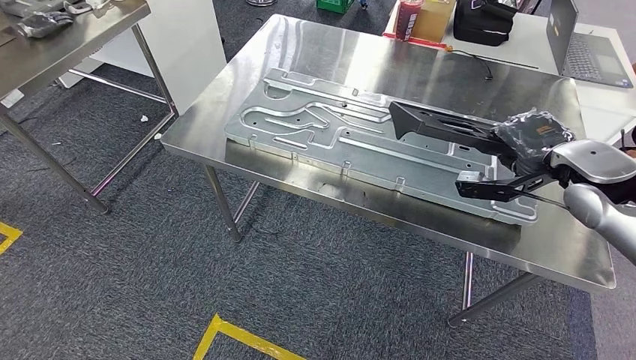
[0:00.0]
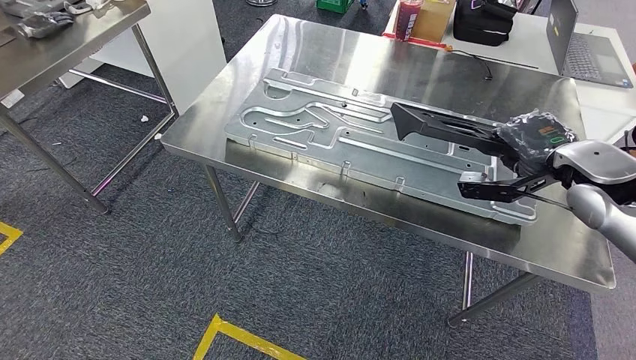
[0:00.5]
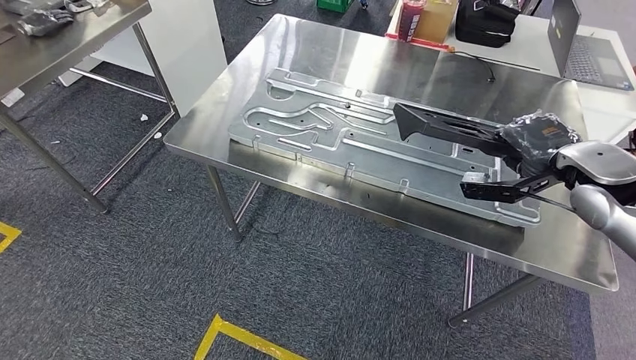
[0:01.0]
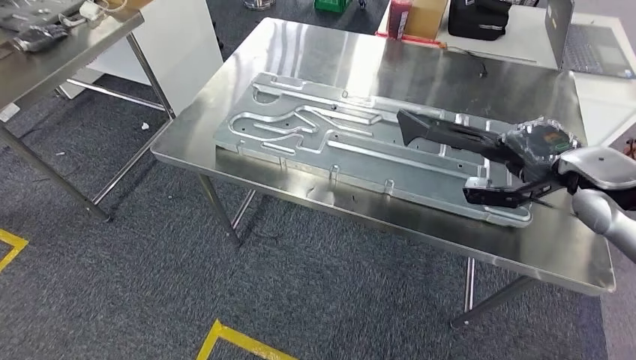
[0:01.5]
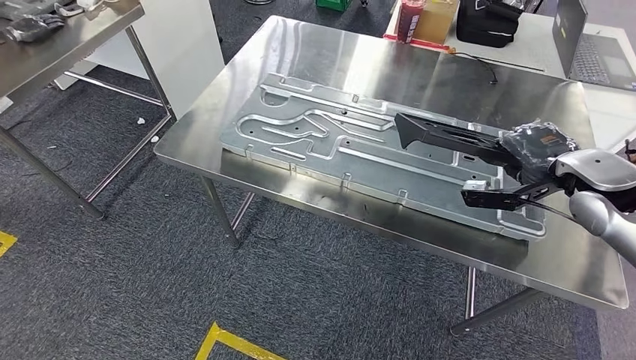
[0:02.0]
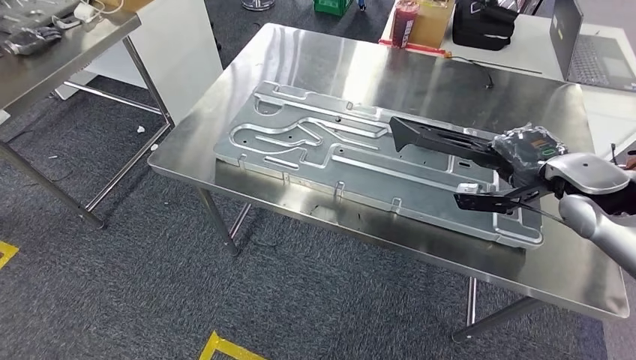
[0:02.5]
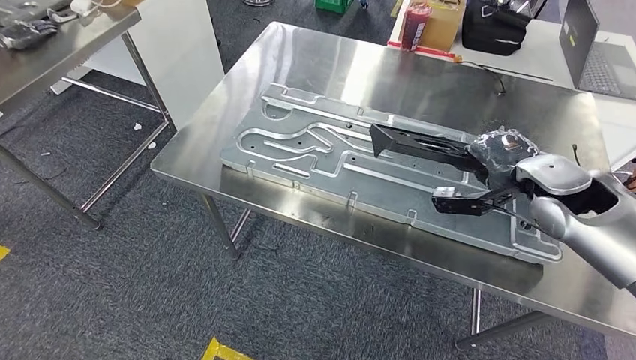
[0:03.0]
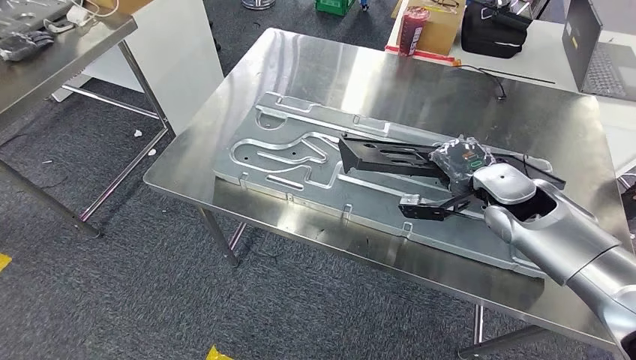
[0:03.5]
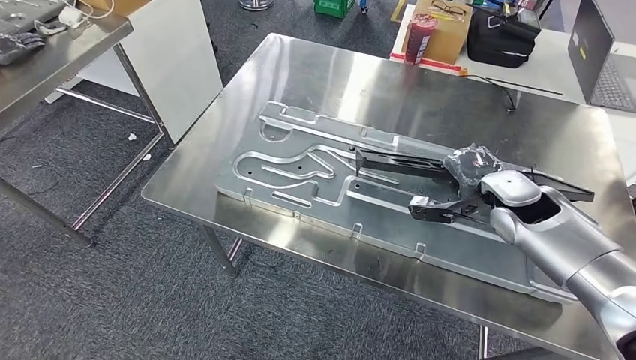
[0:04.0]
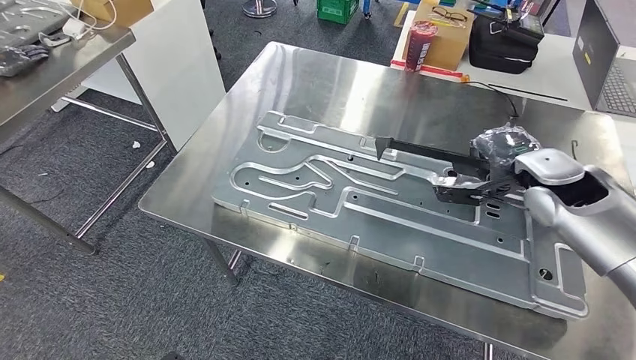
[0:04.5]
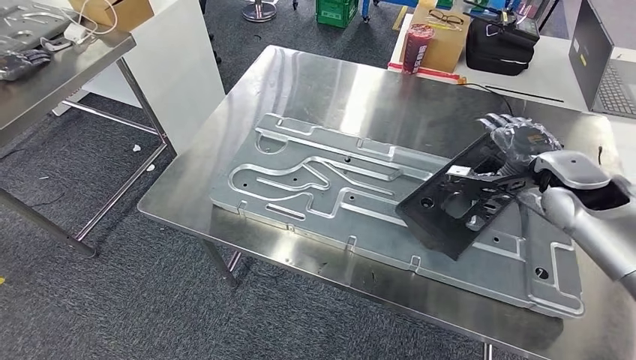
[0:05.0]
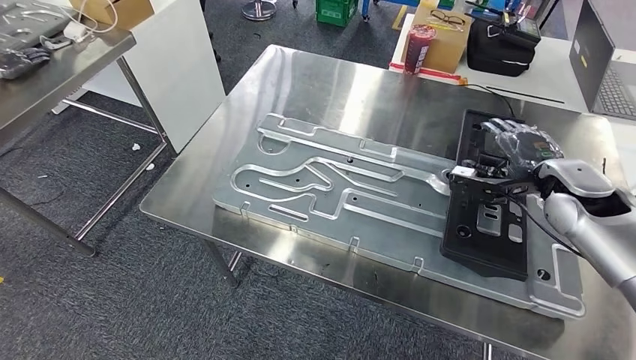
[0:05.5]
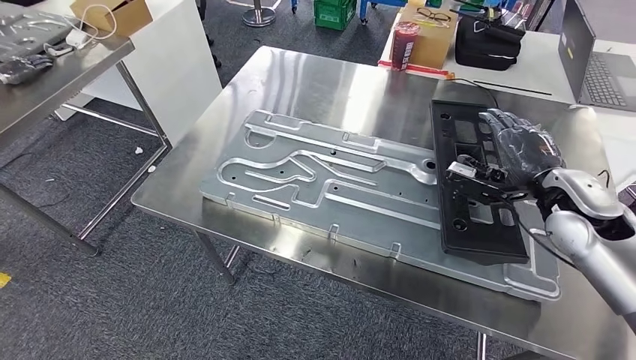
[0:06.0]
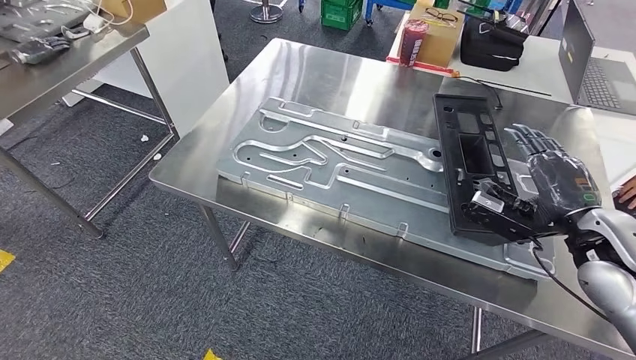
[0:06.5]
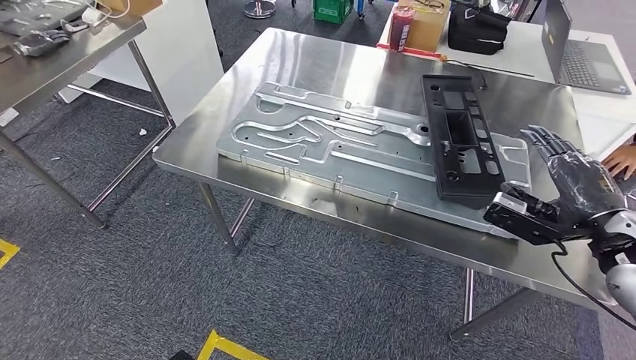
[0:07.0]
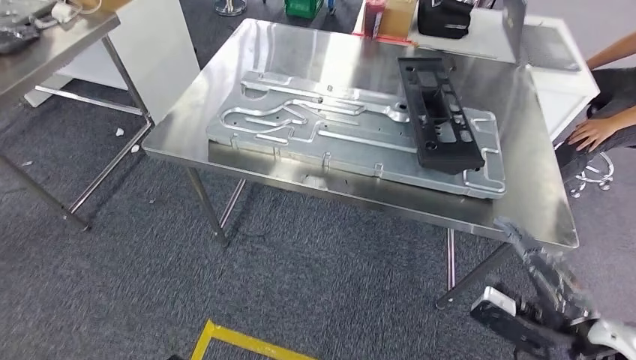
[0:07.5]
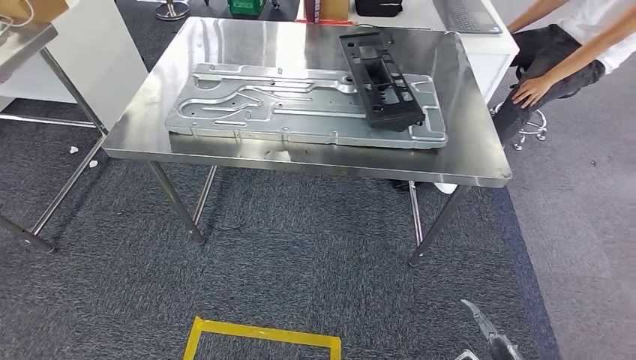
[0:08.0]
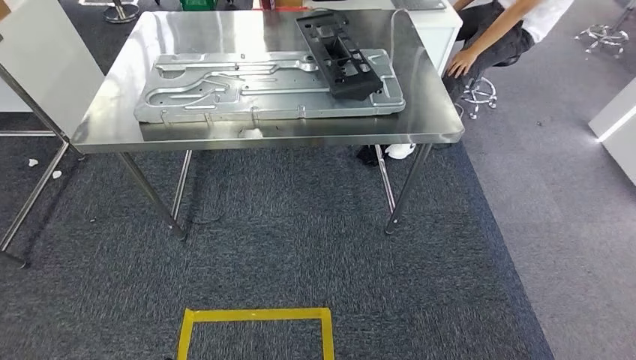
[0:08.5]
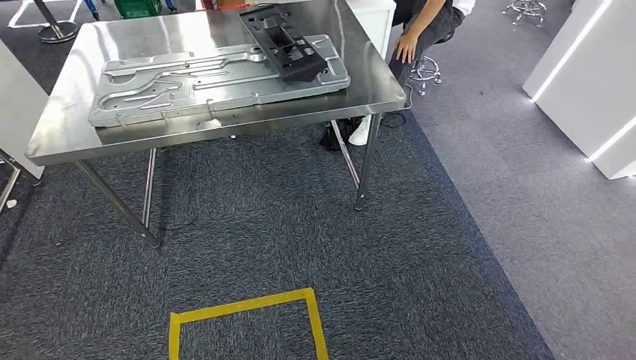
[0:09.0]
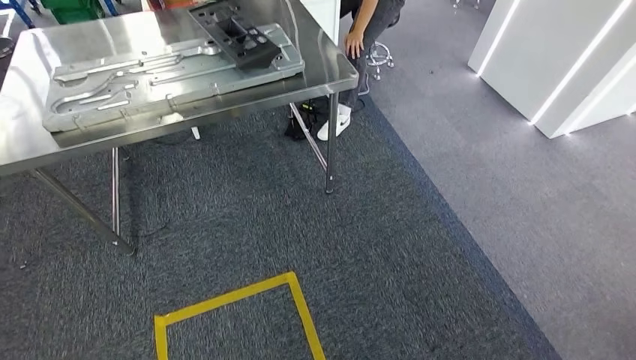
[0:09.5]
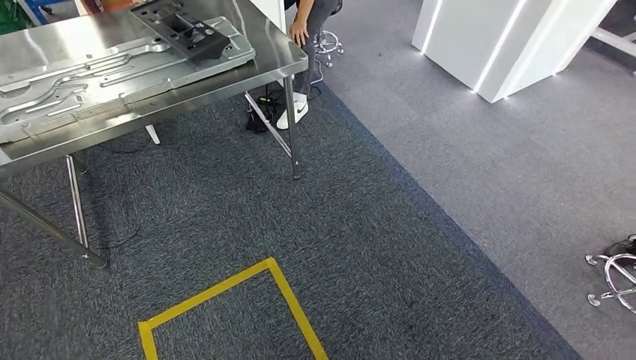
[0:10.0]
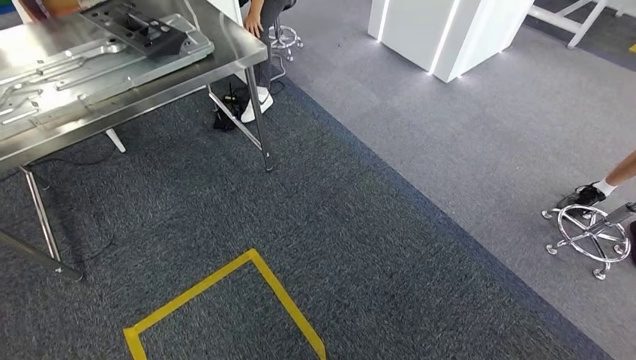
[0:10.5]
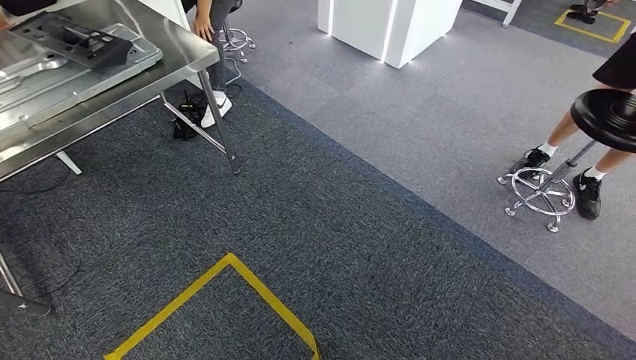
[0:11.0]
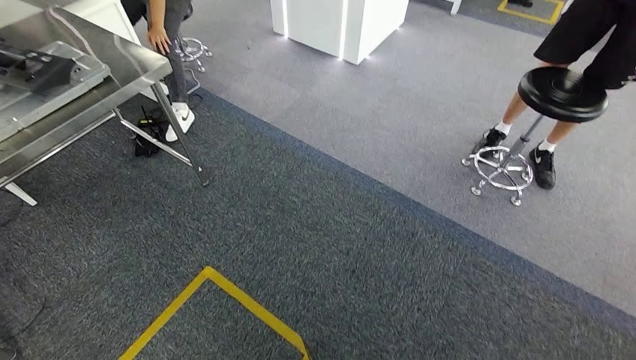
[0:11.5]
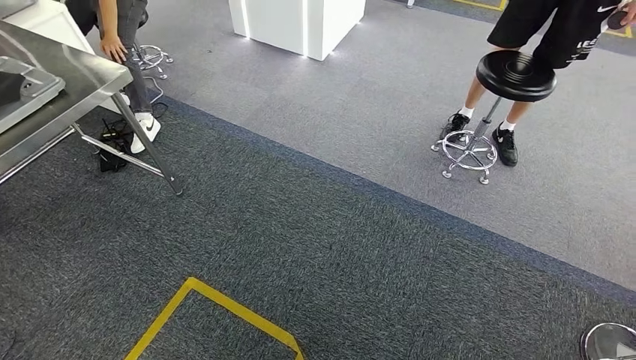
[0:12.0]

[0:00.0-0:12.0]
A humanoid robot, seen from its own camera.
Step, 0:00.0 to 0:07.5: Insert the large material into the corresponding slot on the workbench.

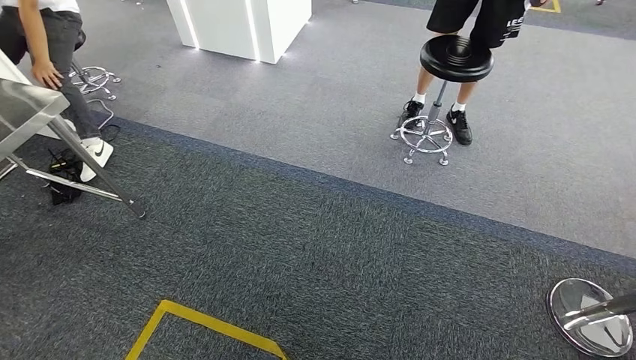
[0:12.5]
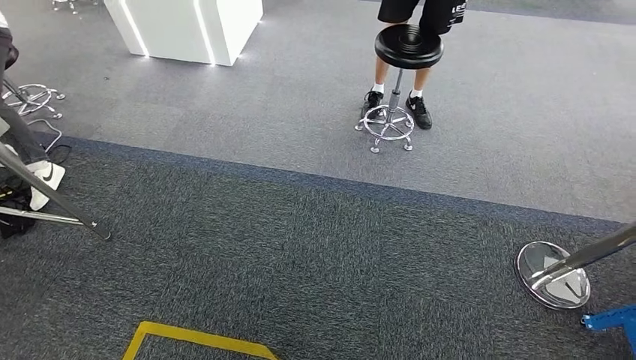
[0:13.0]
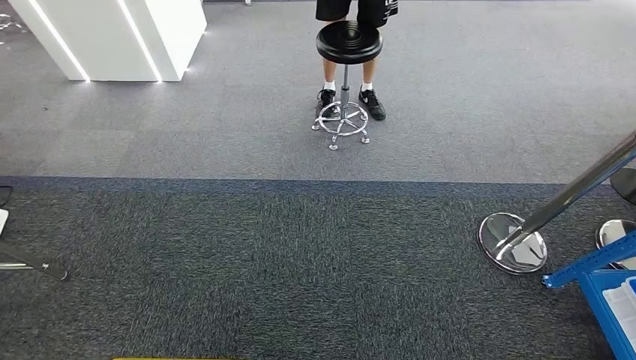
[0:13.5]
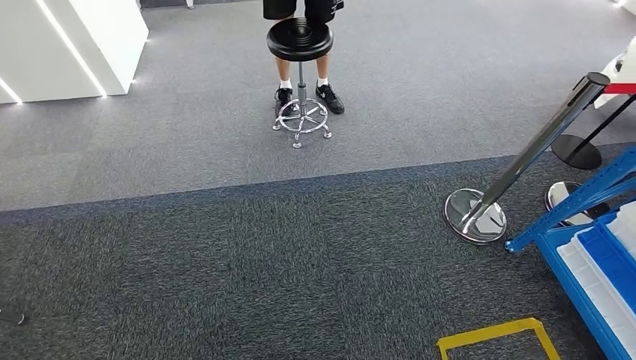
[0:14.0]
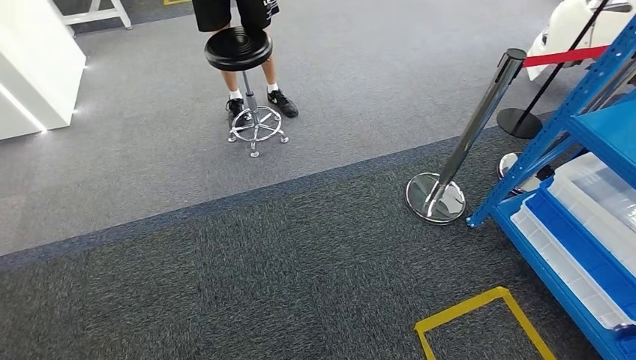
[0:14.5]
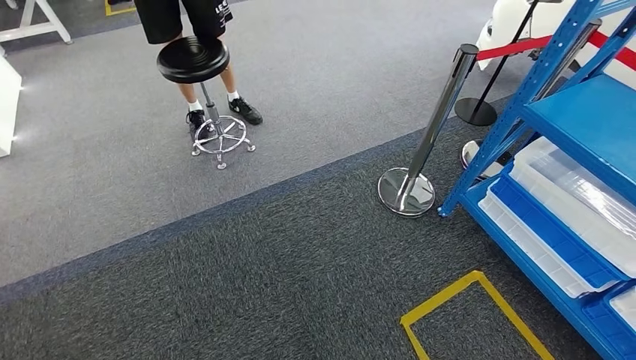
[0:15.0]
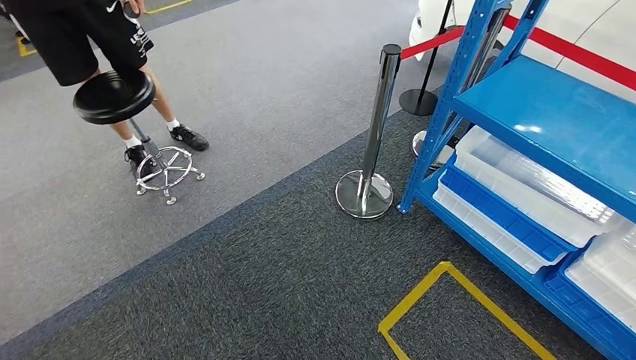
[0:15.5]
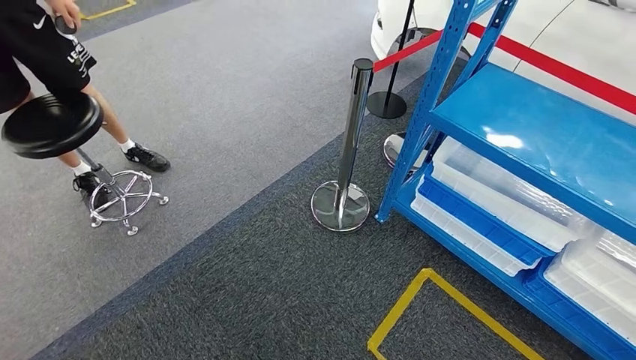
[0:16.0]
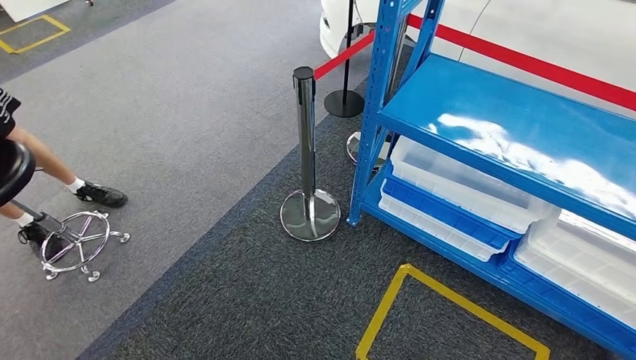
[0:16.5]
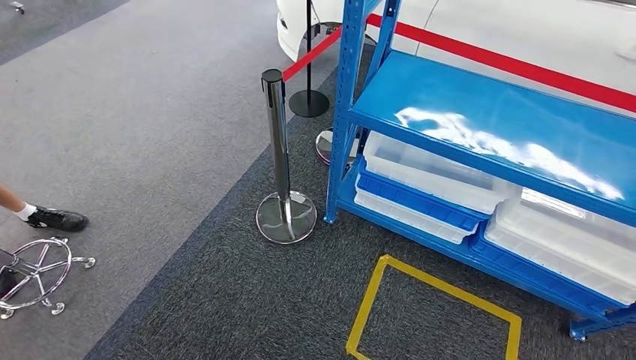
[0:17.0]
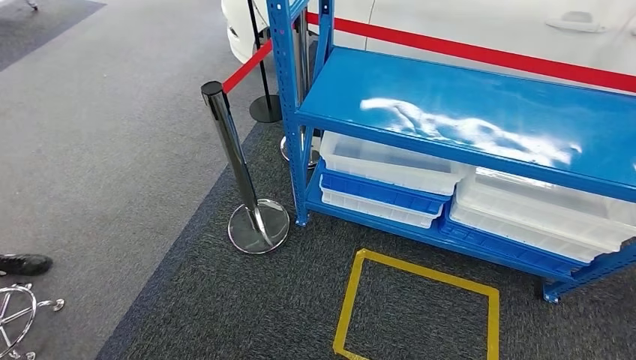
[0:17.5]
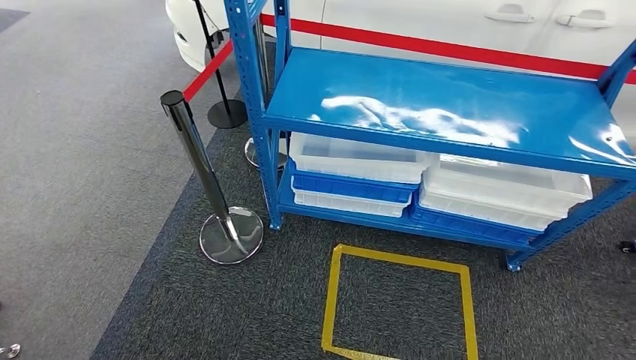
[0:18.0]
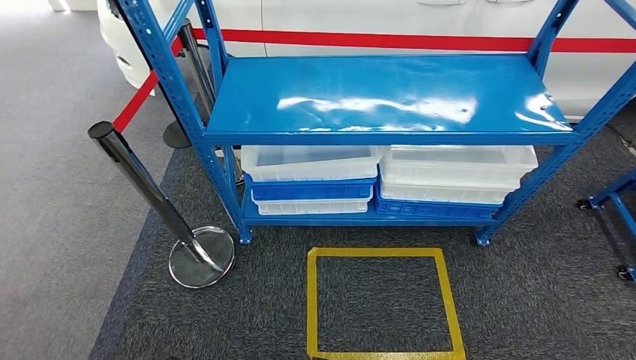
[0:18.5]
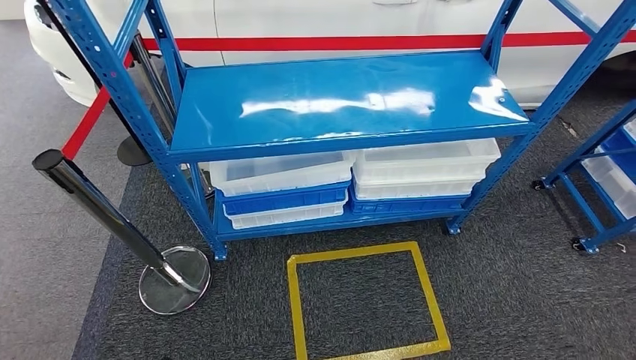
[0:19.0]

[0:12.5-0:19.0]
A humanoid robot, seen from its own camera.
Step, 0:12.5 to 0:19.0: Move to the initial position of the shelf.
